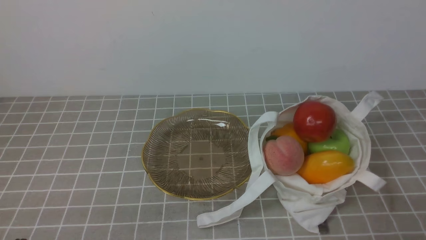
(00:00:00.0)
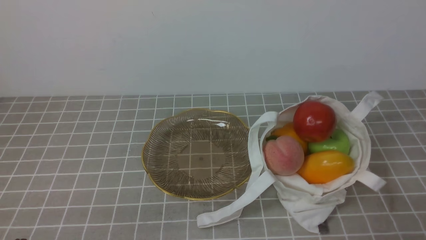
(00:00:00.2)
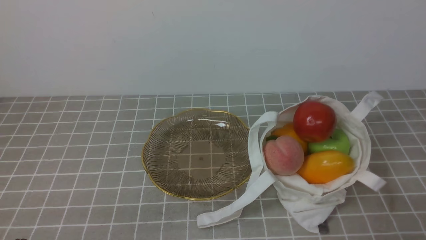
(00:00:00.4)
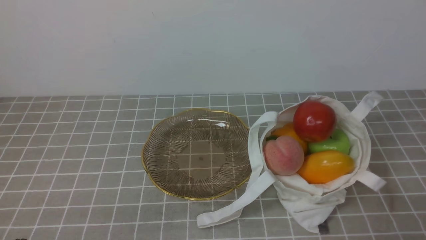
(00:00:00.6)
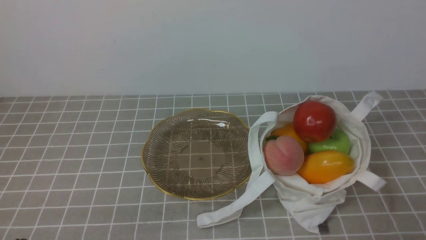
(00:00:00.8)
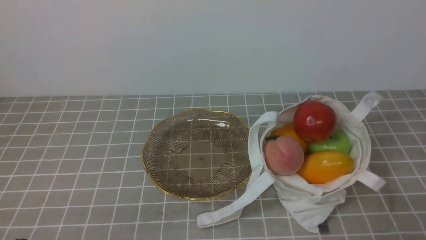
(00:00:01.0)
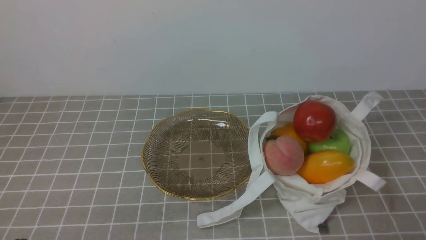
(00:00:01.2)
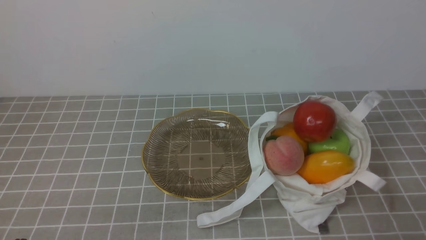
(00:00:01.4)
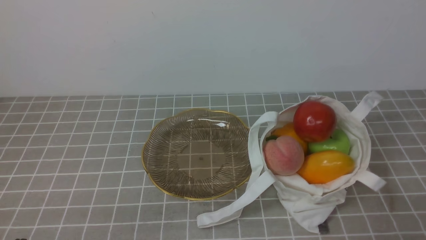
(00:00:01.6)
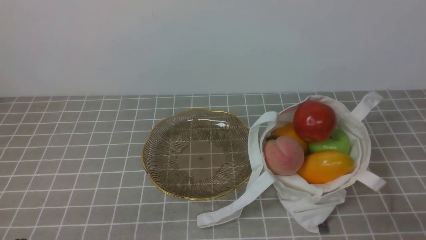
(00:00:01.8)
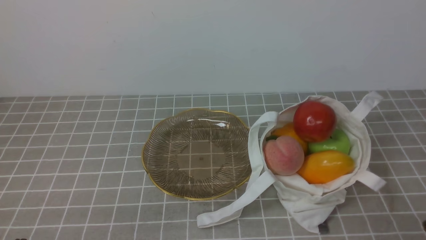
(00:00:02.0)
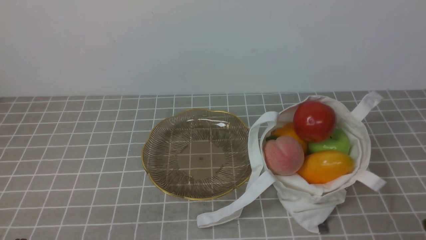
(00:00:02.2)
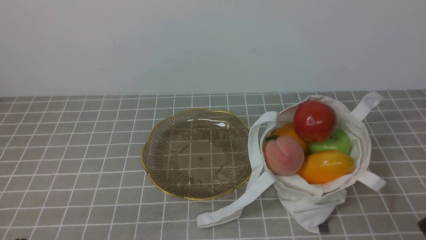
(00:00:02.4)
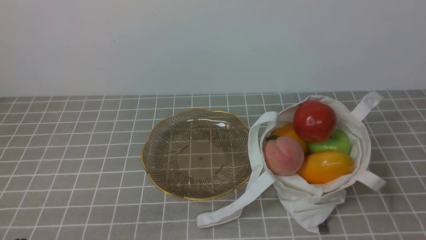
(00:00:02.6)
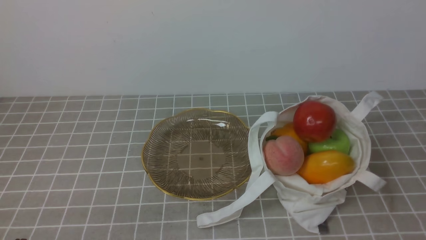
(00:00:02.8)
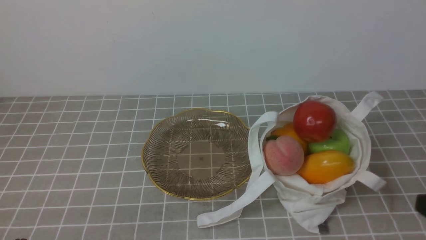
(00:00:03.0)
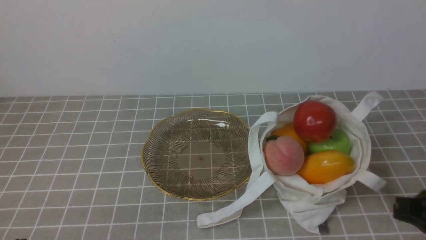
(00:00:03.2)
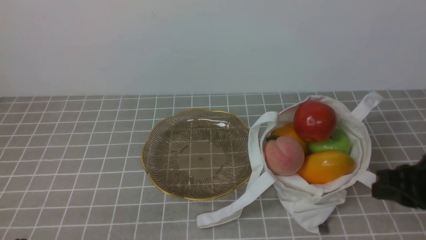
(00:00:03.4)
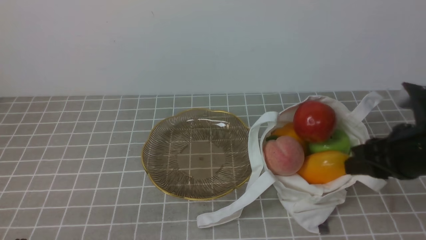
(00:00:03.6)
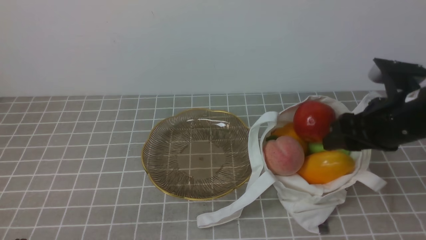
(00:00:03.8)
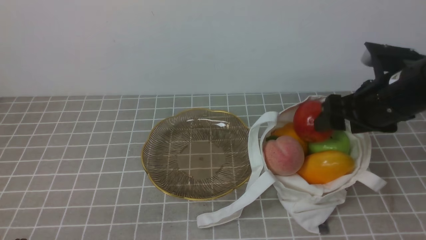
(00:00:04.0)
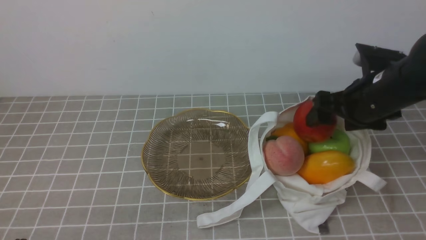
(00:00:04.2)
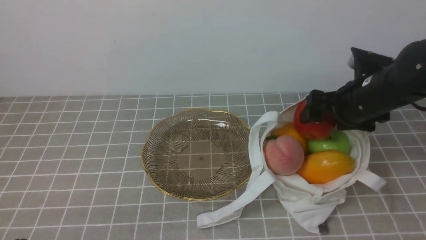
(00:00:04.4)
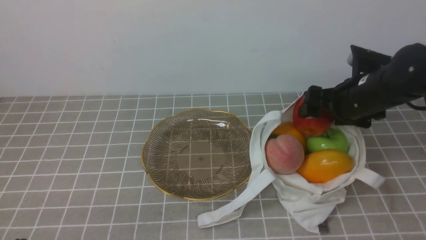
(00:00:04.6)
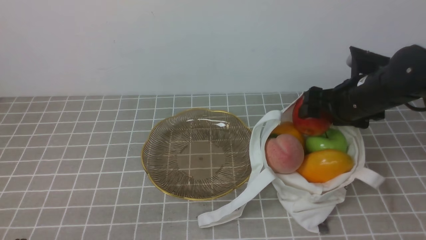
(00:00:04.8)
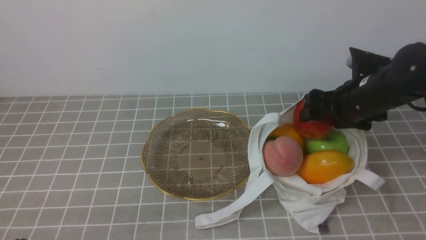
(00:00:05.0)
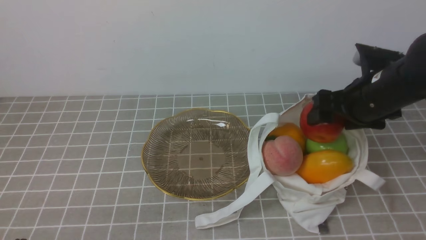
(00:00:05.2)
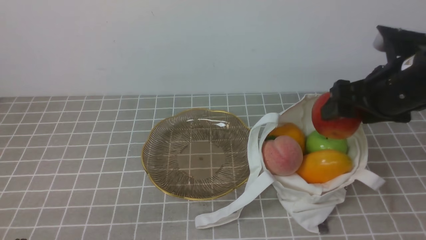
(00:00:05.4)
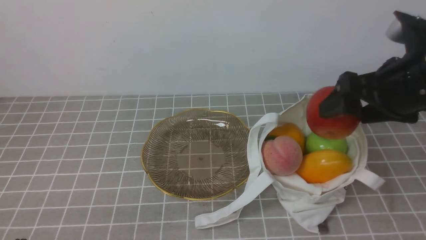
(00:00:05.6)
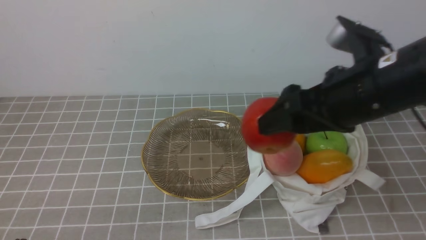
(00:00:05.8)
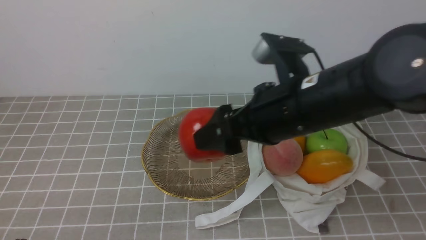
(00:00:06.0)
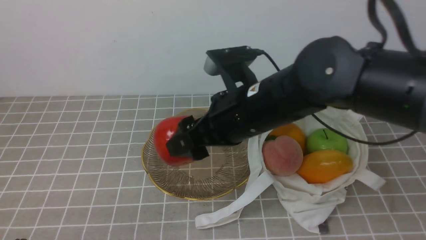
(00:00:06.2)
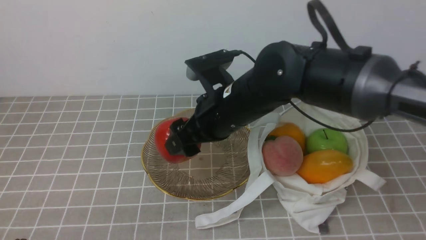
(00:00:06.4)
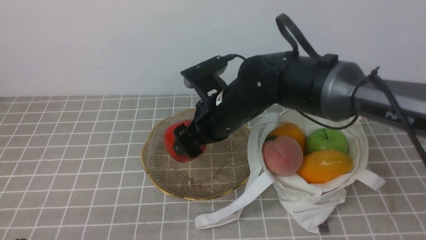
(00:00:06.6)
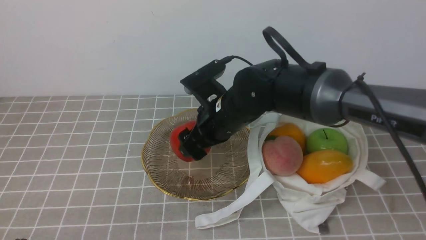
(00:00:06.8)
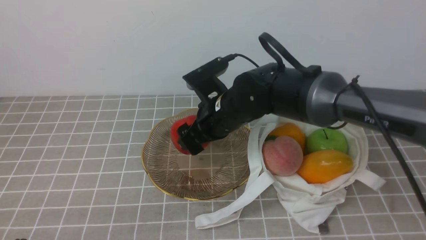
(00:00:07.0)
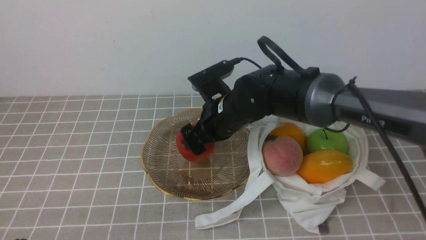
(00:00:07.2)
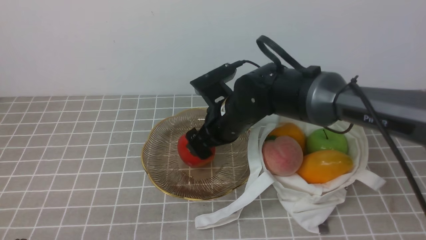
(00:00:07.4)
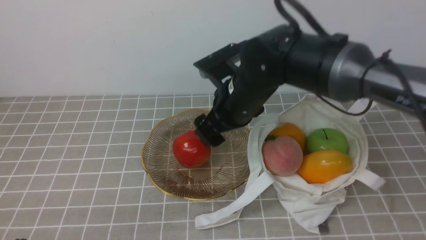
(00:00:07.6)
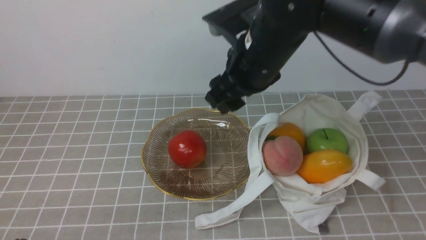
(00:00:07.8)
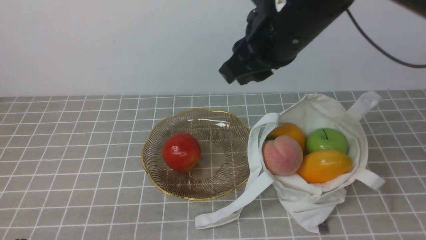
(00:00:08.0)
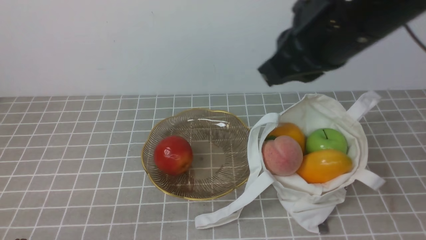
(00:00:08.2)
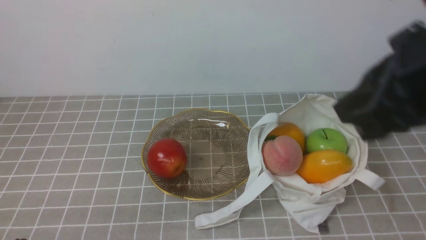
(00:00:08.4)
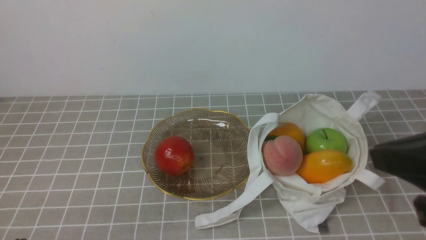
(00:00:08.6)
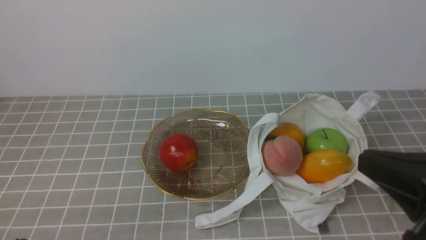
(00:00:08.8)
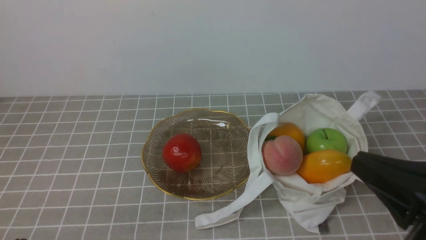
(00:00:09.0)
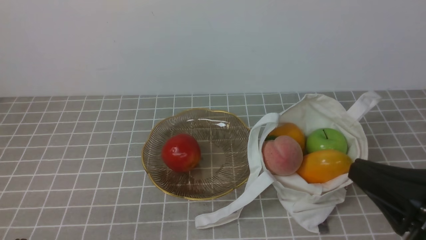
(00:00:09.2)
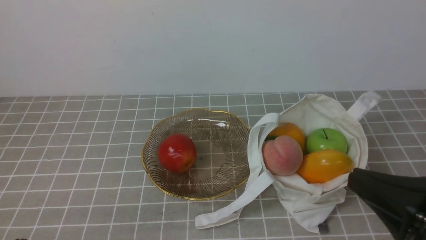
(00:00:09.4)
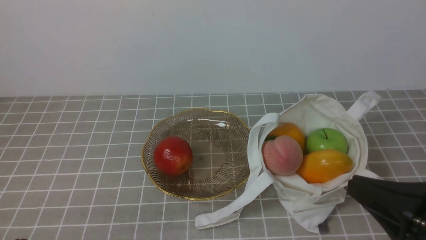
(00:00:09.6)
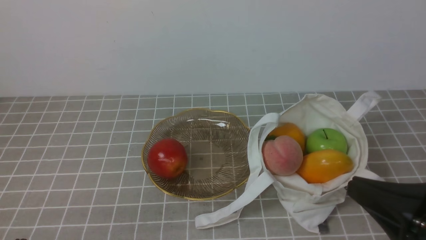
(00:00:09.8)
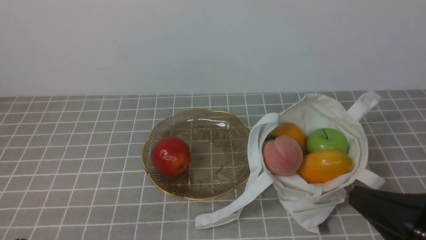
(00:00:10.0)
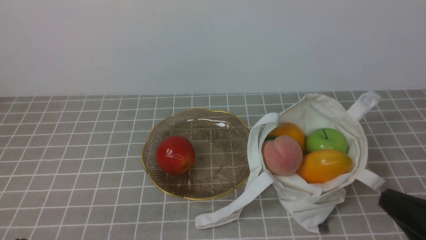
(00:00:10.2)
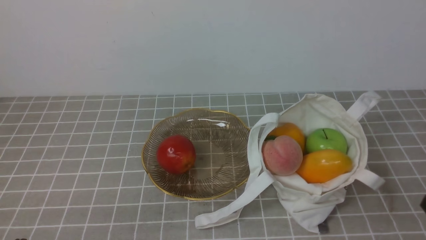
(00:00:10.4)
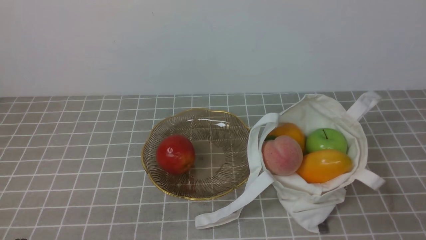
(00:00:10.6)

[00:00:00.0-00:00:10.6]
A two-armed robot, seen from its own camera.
Step, 00:00:00.0 to 00:00:05.0: use the right arm to grab an apple from the bag.
Step, 00:00:05.2 to 00:00:07.4: use the right arm to put the apple into the empty plate on the left.
00:00:03.0 to 00:00:04.6: The right gripper moves forward, some 25 cm, and opens.
00:00:04.6 to 00:00:06.0: The right gripper goes approximately 20 cm to the left, backward and upward.
00:00:06.0 to 00:00:07.6: The right gripper is displaced forward by roughly 10 cm, and reaches about 10 cm downward, then returns.
00:00:07.6 to 00:00:09.0: The right gripper shifts some 30 cm backward and to the right, and closes.
00:00:09.0 to 00:00:10.6: The right gripper heads downward and to the right, covering approximately 15 cm.

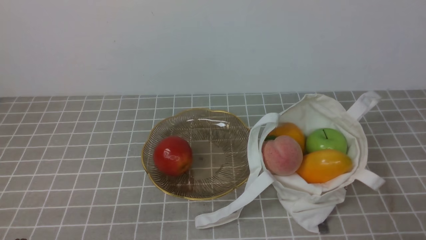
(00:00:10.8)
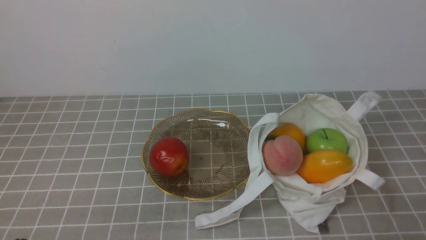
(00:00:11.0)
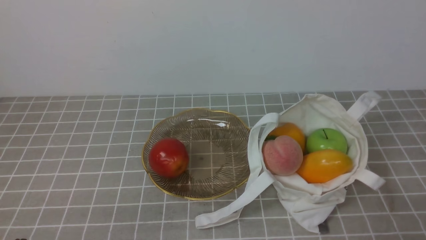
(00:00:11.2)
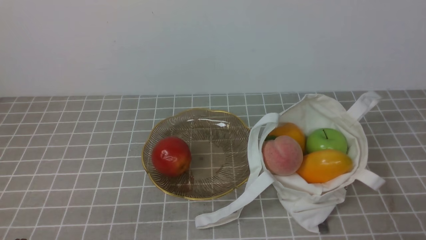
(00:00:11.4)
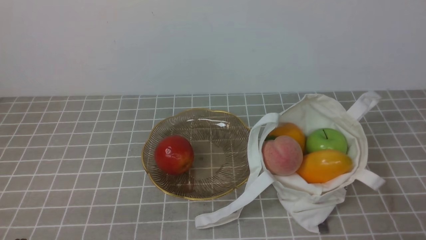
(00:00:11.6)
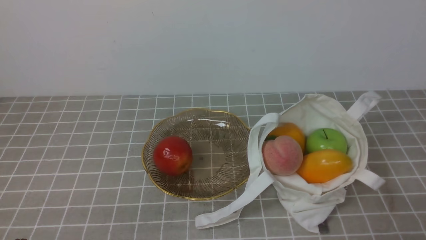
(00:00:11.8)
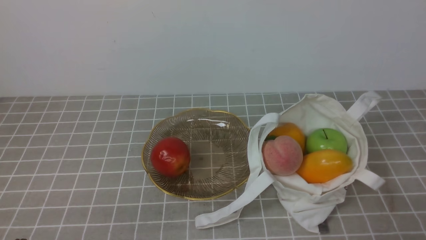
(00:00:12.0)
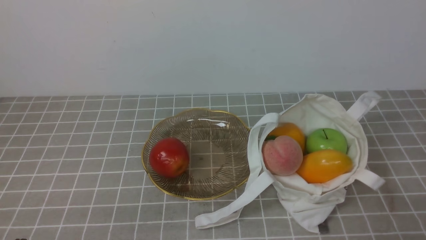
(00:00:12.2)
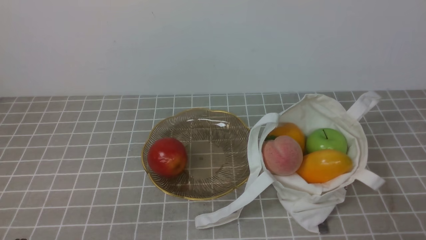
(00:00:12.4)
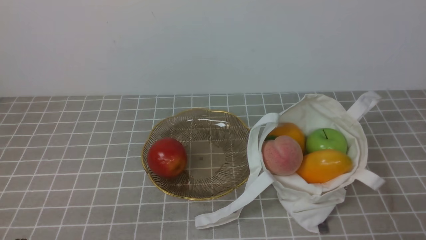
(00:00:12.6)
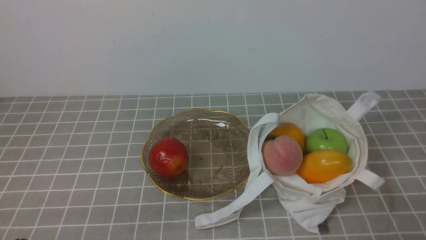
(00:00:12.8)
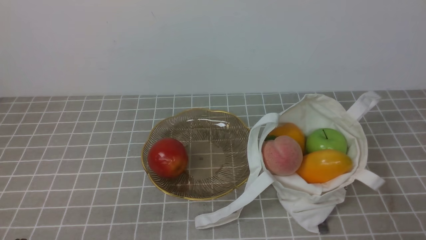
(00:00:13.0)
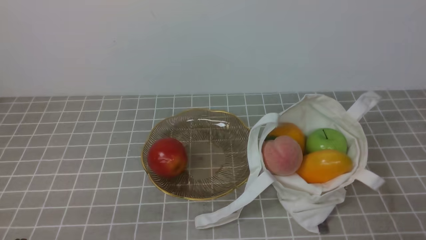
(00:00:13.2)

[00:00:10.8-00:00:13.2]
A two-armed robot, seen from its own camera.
00:00:10.8 to 00:00:13.2: Both grippers stay about where they are.
